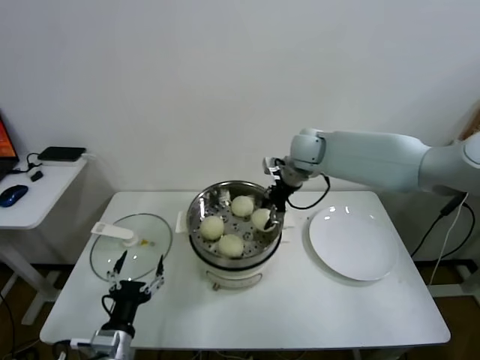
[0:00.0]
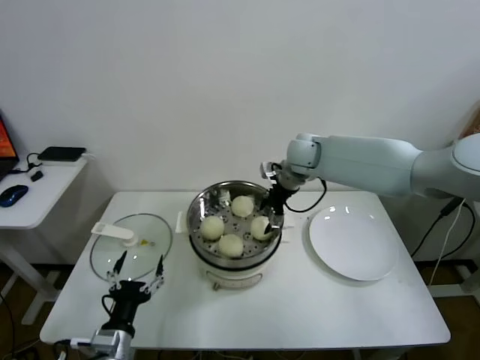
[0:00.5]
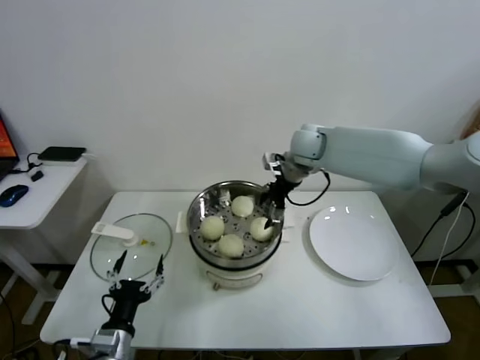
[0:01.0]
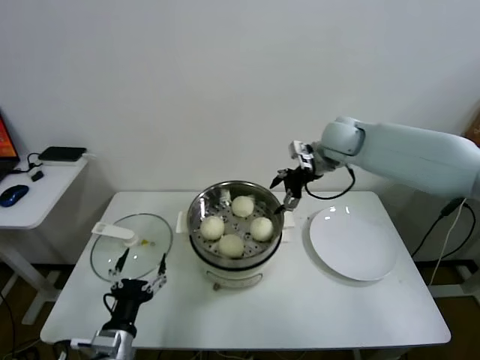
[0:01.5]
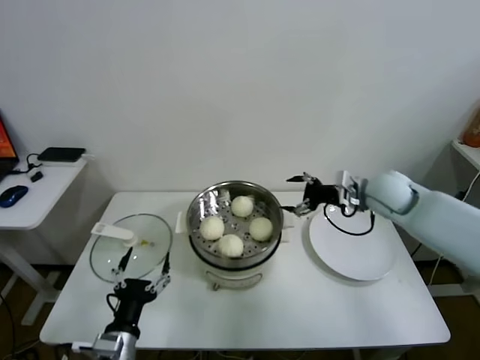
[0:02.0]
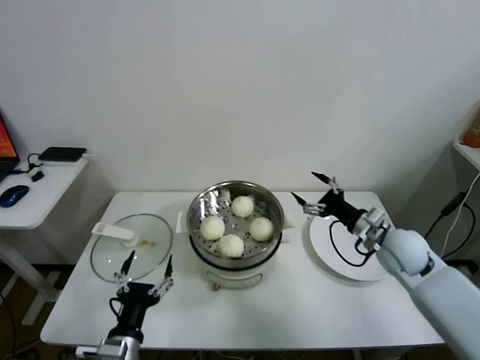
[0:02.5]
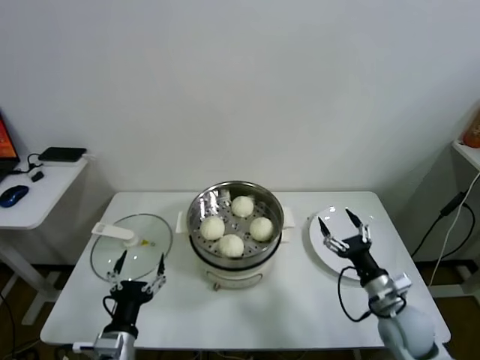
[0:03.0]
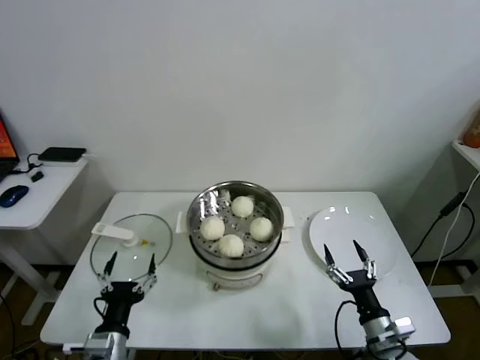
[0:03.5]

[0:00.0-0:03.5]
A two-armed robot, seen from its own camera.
Task of the whole recording: take steamed baozi put them in steamer.
0:00.0 to 0:02.0: The right gripper shifts approximately 20 cm to the right and backward, and opens up.
0:02.0 to 0:03.5: The right gripper goes some 35 cm backward and downward.
